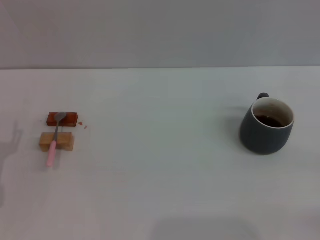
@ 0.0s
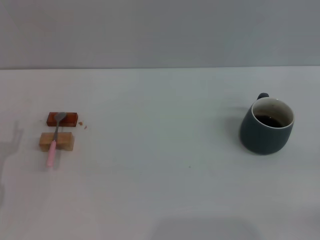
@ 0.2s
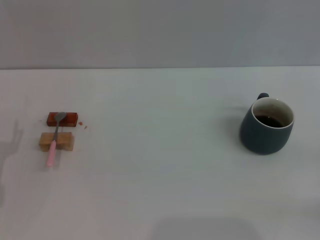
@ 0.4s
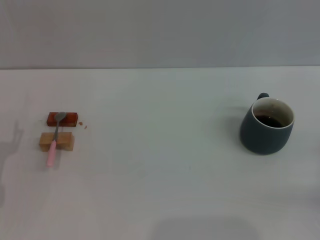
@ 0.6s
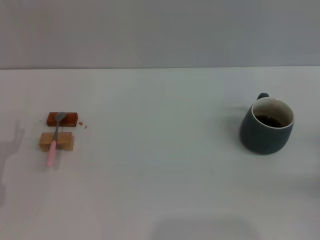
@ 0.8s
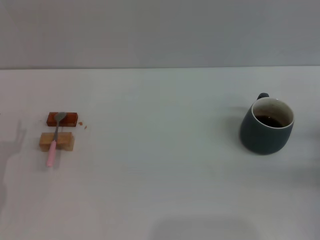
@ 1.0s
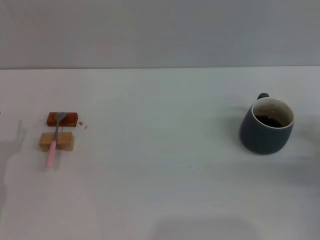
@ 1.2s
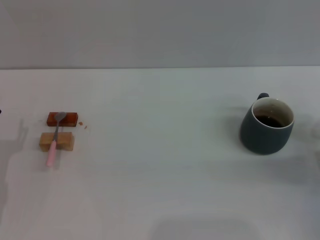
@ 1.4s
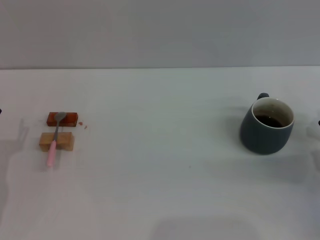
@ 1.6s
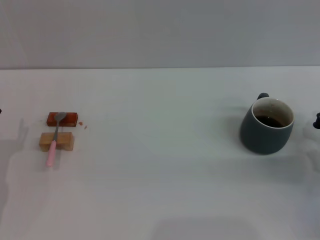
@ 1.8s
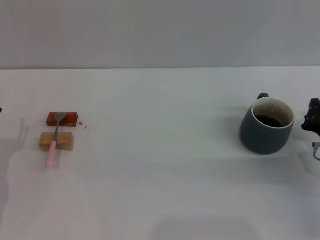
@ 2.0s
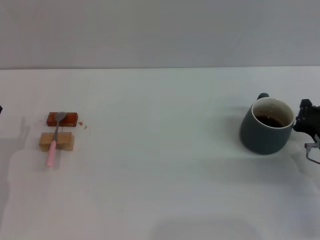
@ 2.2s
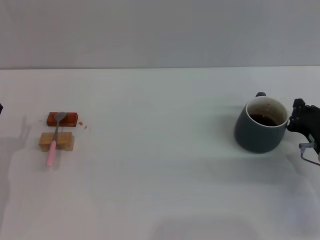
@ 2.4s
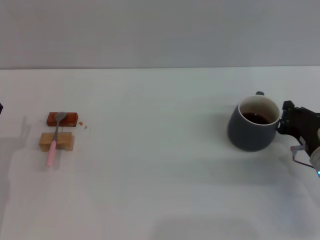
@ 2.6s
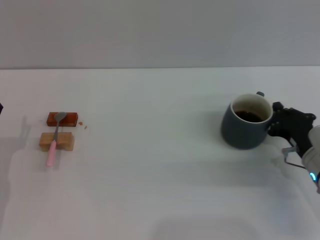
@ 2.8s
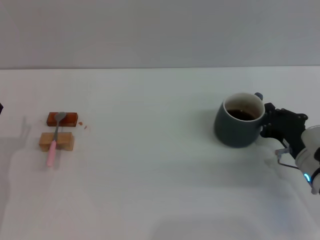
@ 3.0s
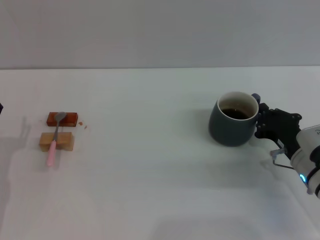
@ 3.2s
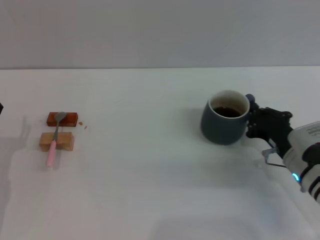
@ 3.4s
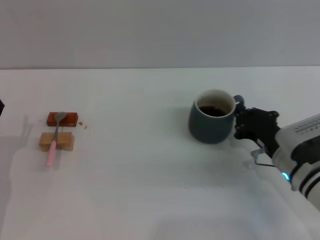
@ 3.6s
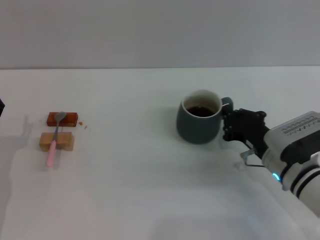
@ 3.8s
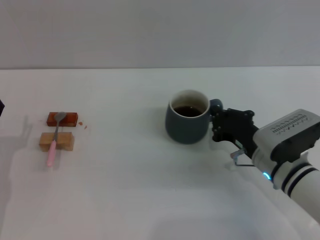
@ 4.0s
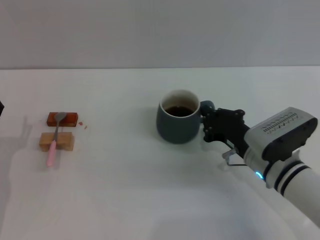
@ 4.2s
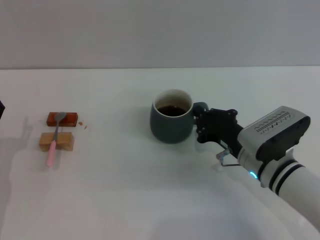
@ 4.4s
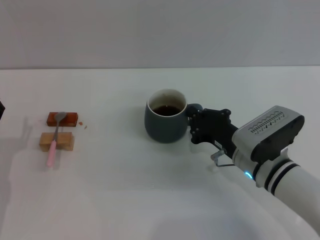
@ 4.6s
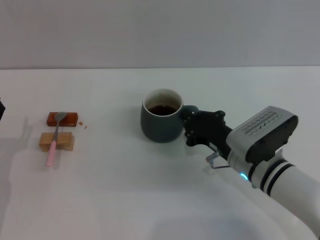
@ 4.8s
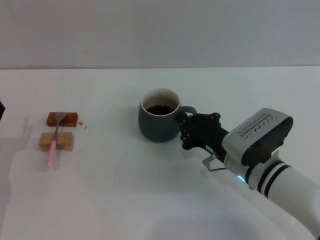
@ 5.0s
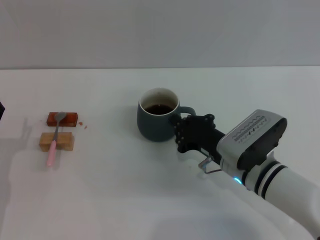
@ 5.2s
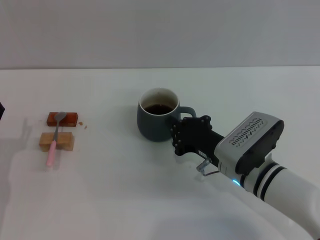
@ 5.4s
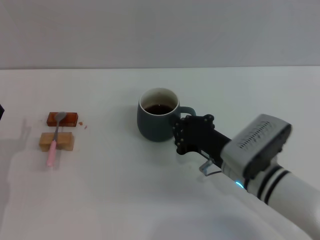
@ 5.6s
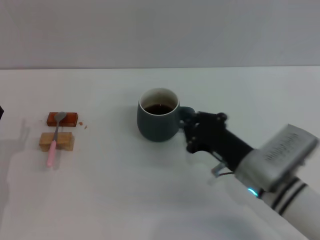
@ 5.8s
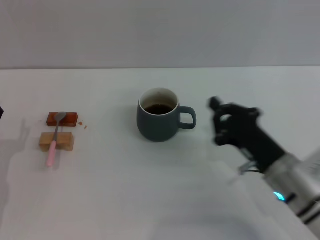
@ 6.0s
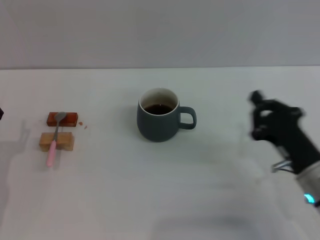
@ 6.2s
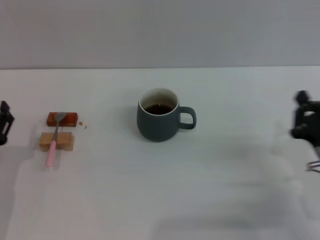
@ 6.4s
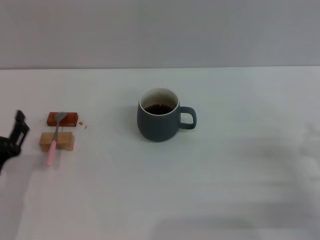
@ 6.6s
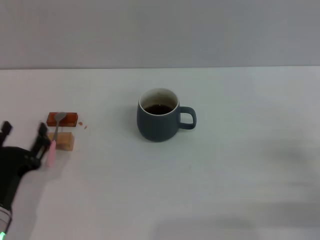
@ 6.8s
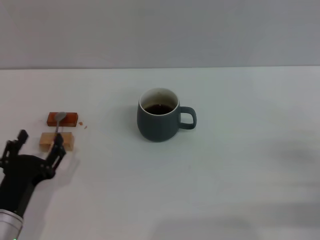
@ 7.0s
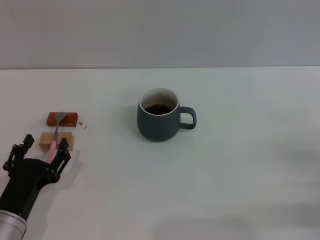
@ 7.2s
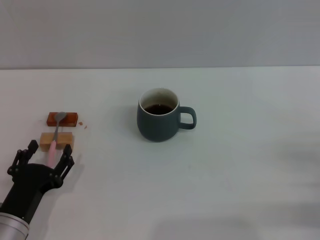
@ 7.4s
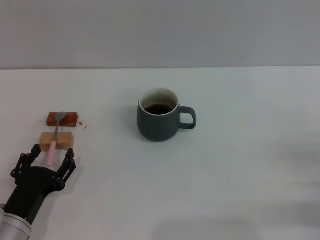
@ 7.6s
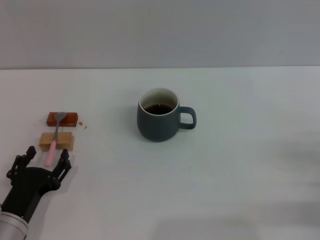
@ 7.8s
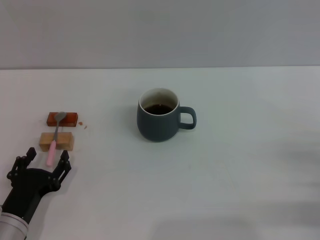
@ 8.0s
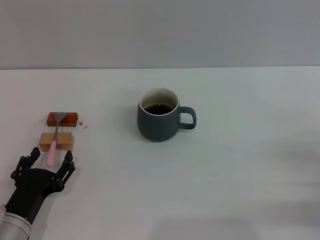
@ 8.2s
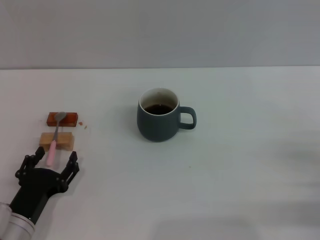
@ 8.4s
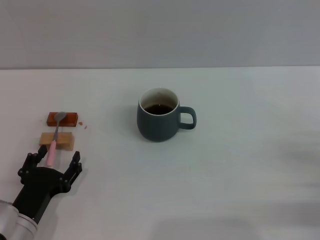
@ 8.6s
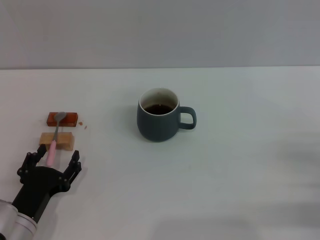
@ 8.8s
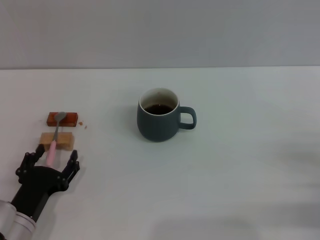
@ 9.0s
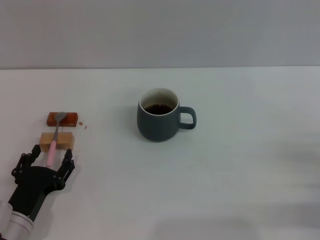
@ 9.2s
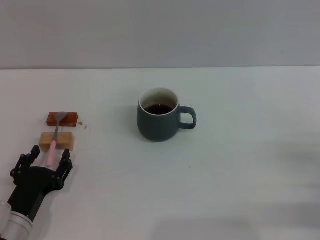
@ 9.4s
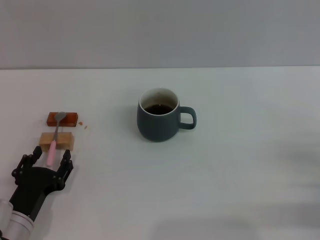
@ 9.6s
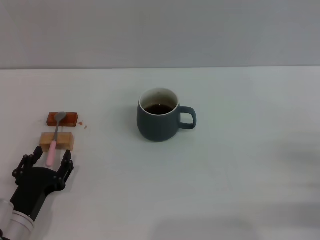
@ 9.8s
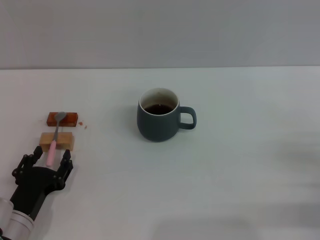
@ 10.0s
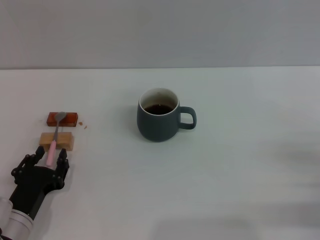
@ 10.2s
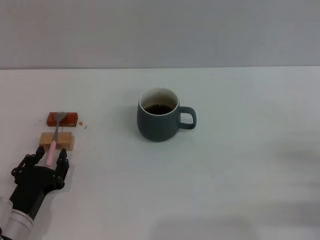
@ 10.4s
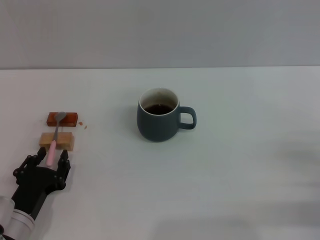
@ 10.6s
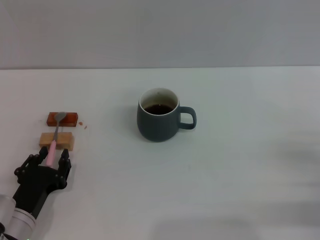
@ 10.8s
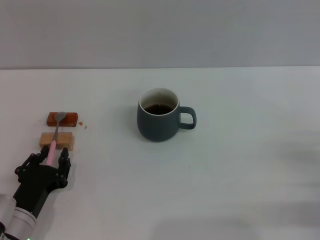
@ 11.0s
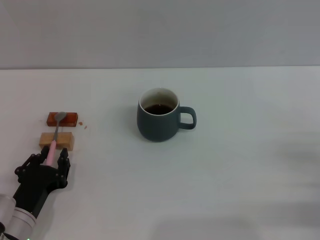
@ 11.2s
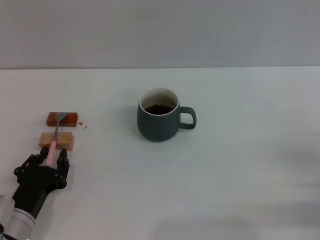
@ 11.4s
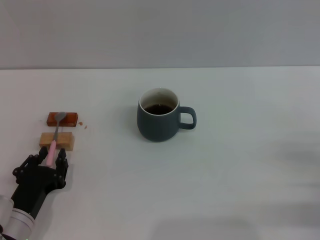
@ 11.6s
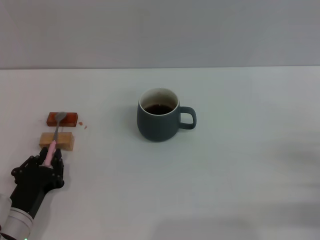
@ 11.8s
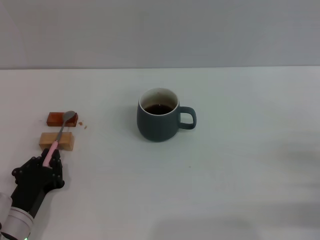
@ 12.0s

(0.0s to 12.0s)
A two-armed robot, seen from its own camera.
Task of the whole recording: Move the grey cup to the center, lift the pink spoon, stir it three times in the cup, and put the spoon into the cup.
Step, 0.0s - 5.8s: Move the cup with coffee to the center of view with the right gripper.
0.0s - 1.6s: The right gripper moves forward and to the left, about 10 cm.
1.6s - 3.0s: The right gripper travels to the left by about 5 cm.
3.0s - 4.4s: The right gripper shifts some 10 cm to the left.
4.4s - 6.0s: The right gripper shifts by roughly 5 cm.
6.0s - 7.6s: The right gripper is displaced to the right by some 15 cm. The left gripper moves to the right and backward, approximately 10 cm.
7.6s - 9.0s: The grippers stay close to where they were, moving slightly.
9.0s - 10.4s: Neither gripper changes place.
10.4s - 12.0s: The left gripper closes its fingers.

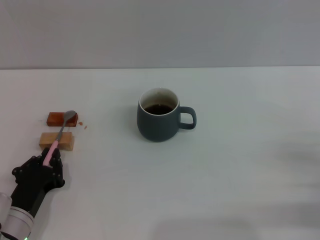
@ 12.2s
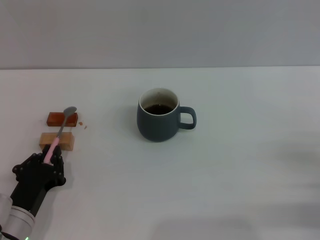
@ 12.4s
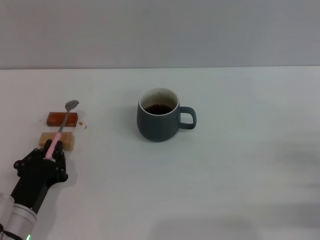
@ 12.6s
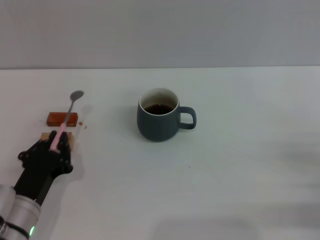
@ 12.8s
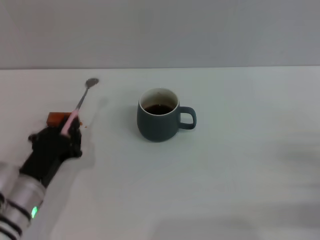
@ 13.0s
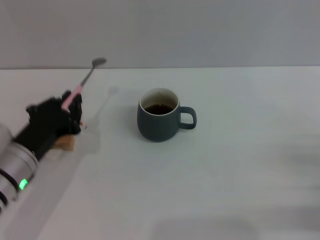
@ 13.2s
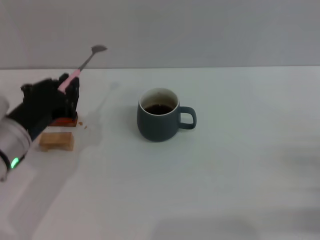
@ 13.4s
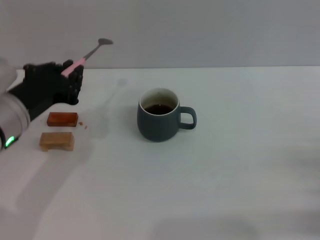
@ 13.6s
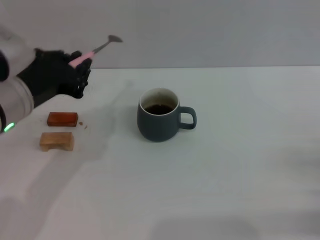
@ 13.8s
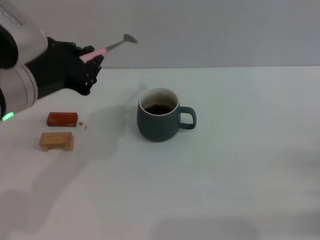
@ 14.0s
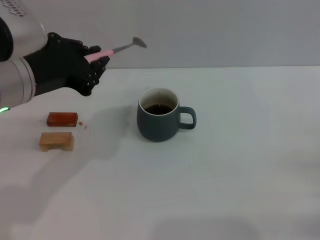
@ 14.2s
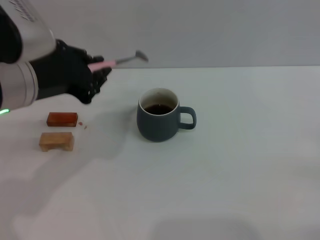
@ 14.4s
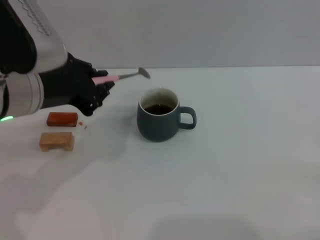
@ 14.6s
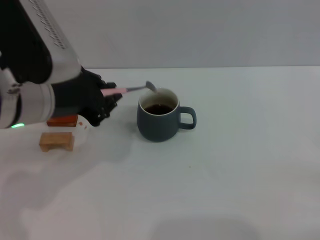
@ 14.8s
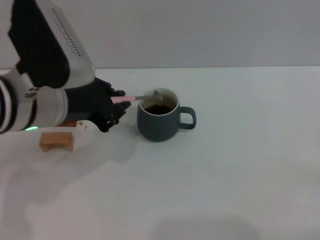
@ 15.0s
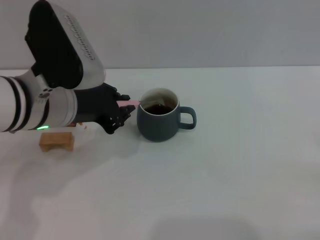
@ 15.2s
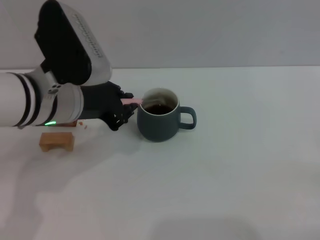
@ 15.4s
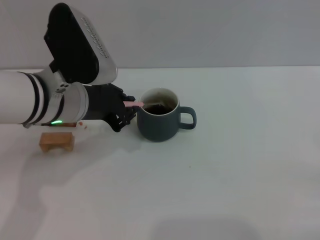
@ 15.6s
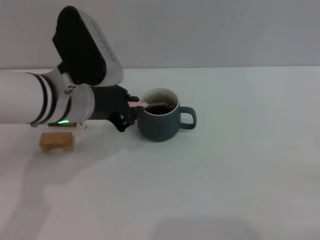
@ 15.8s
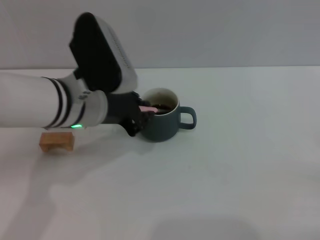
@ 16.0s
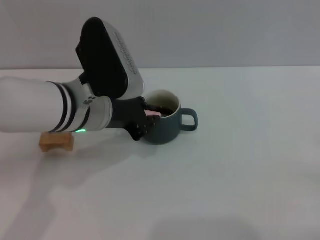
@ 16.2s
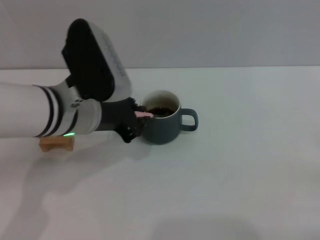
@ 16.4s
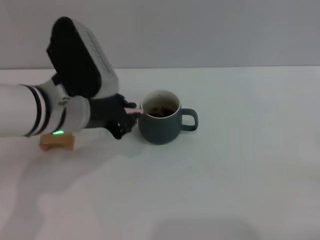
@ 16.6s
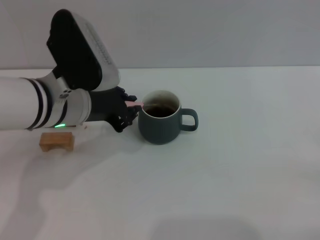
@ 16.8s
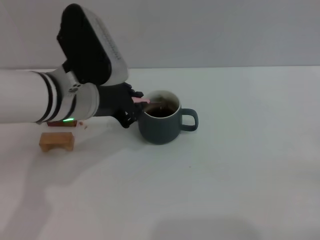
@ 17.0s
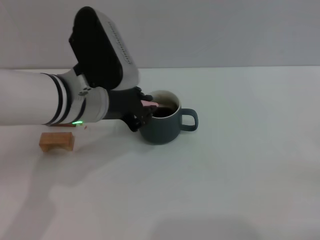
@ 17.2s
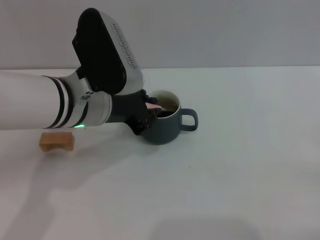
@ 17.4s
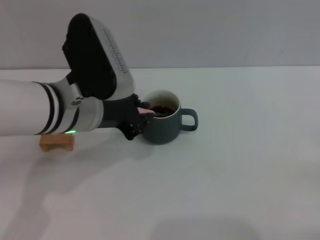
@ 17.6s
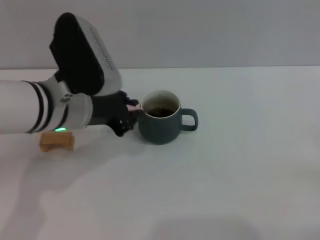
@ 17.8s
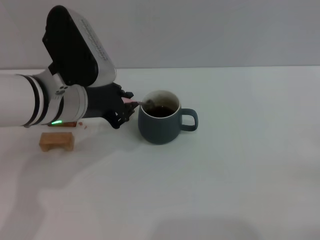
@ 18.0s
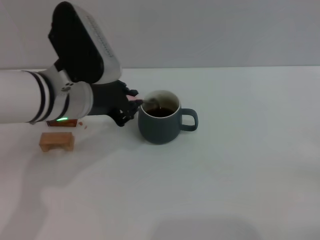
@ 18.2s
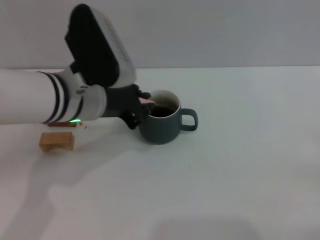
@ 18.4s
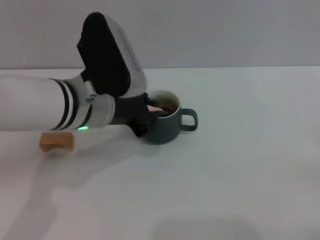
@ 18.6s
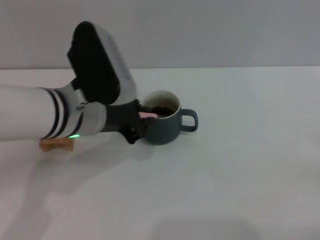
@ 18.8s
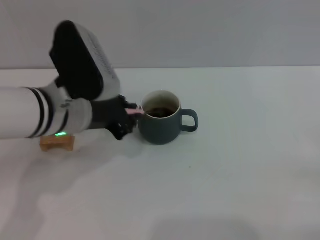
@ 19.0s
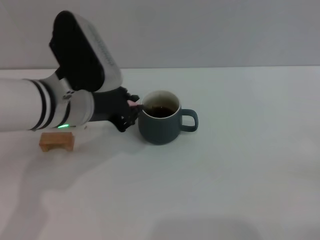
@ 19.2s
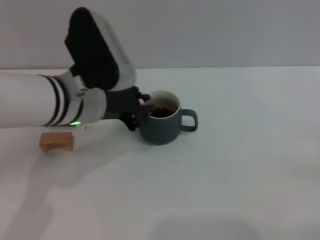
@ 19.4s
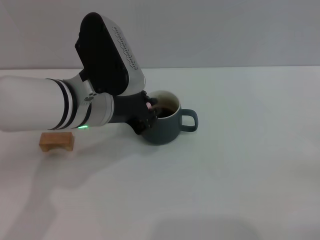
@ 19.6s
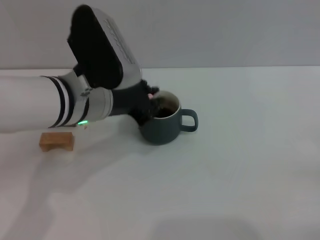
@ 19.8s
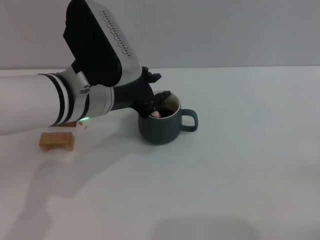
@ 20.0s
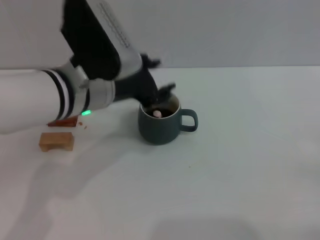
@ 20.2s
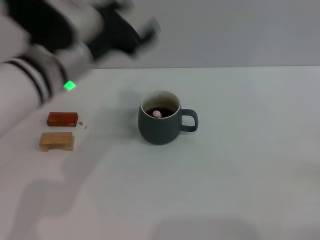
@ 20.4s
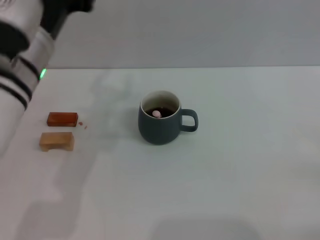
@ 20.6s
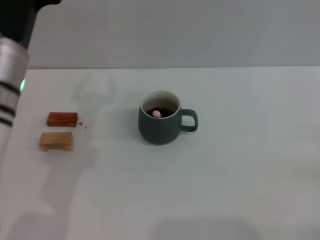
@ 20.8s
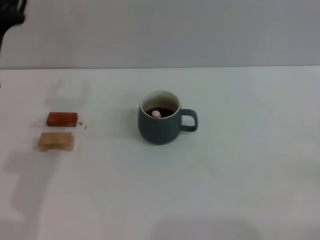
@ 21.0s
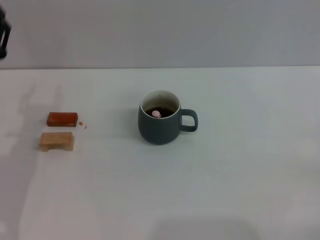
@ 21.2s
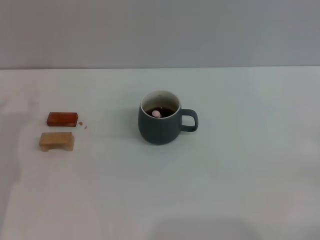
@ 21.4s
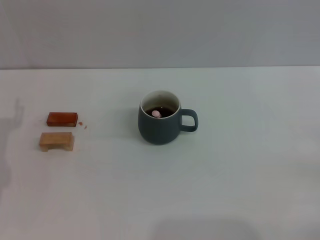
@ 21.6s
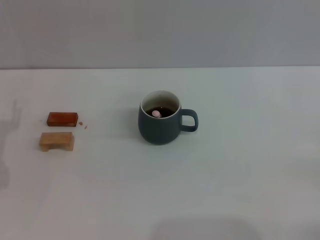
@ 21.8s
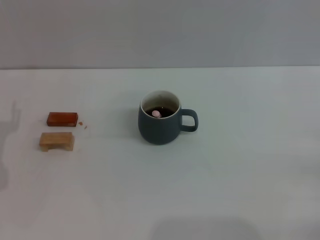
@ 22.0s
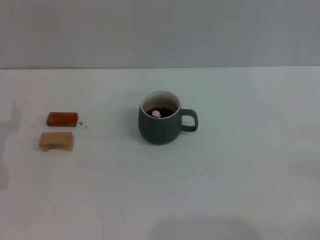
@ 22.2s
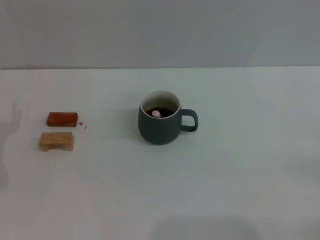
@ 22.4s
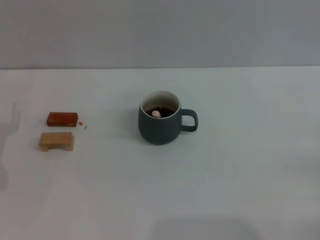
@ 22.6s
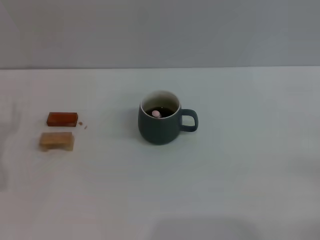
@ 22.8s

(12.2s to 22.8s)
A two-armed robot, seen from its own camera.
Task of the whole recording: Move the grey cup to the center, lift the pink spoon, stir it three times in the cup, and put the spoon into the cup.
Step, 13.4s - 20.0s: Stir the coffee in the cup with the left gripper.
12.2s - 13.8s: The left gripper shifts approximately 20 cm upward.
15.2s - 19.8s: The grippers stay close to where they were, moving slightly.
19.8s - 21.2s: The left gripper shifts some 15 cm to the left and downward, and opens.
21.2s - 22.8s: The left gripper goes approximately 5 cm downward and to the left.
